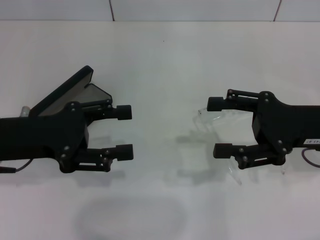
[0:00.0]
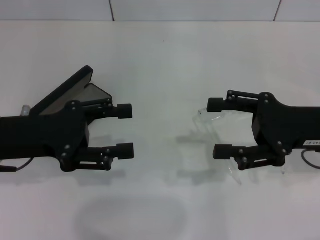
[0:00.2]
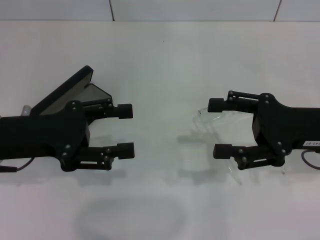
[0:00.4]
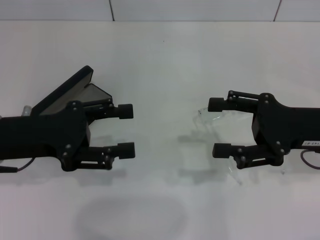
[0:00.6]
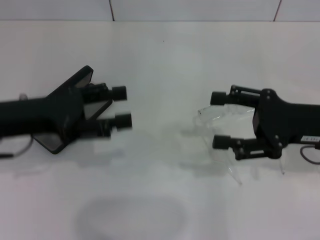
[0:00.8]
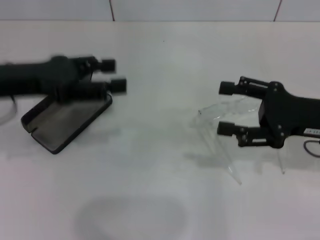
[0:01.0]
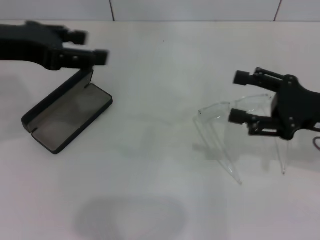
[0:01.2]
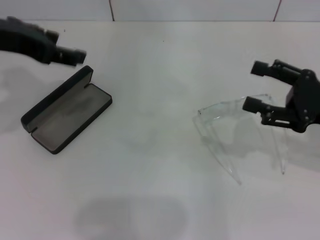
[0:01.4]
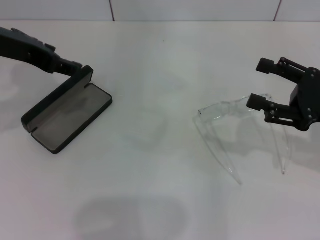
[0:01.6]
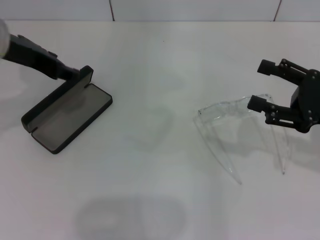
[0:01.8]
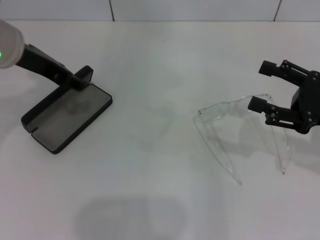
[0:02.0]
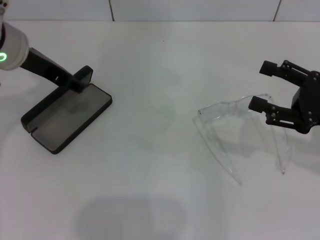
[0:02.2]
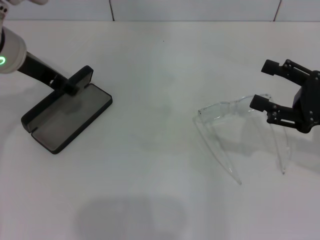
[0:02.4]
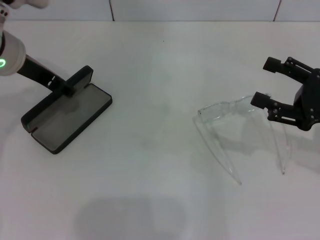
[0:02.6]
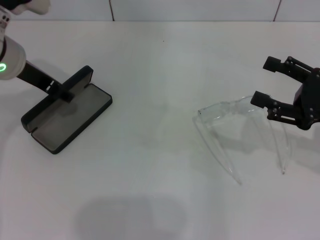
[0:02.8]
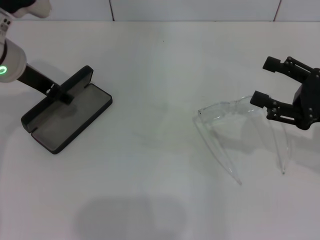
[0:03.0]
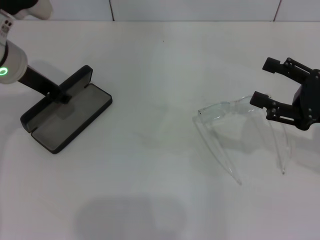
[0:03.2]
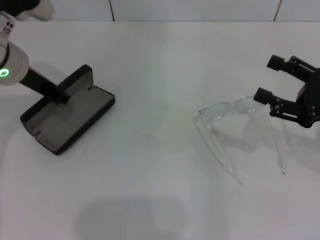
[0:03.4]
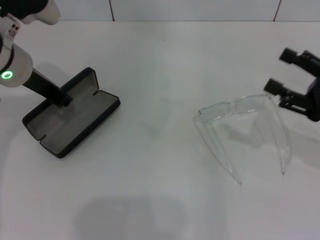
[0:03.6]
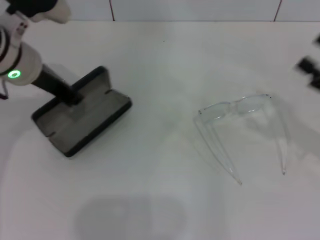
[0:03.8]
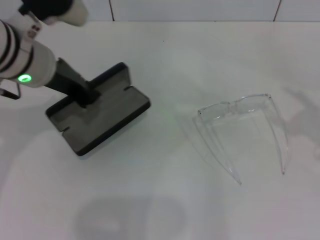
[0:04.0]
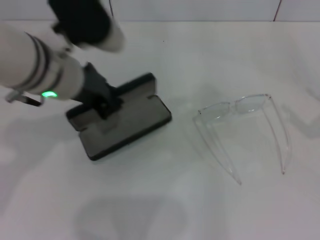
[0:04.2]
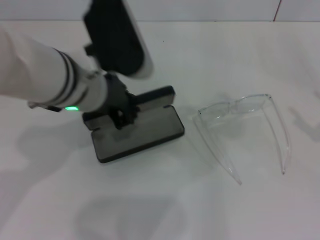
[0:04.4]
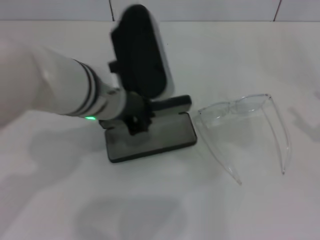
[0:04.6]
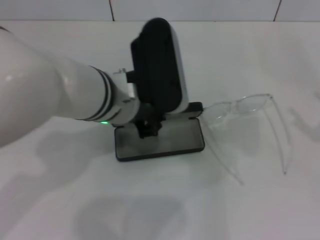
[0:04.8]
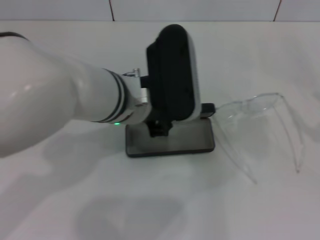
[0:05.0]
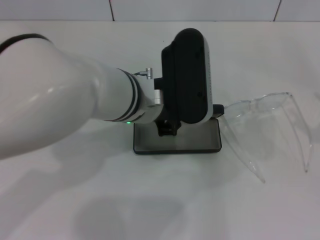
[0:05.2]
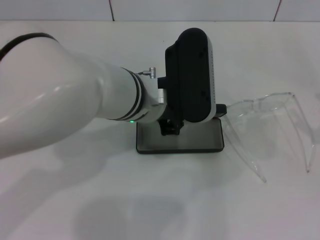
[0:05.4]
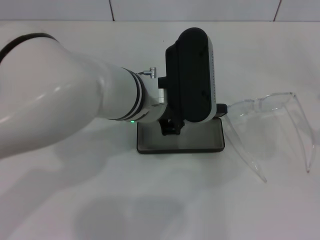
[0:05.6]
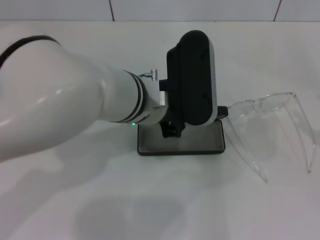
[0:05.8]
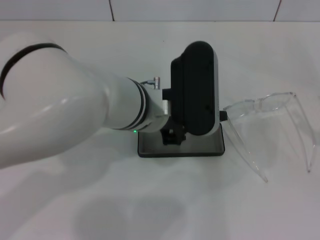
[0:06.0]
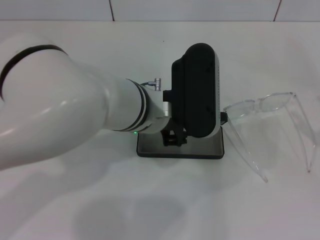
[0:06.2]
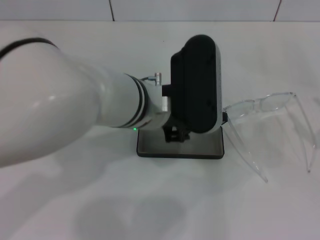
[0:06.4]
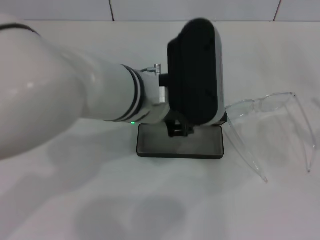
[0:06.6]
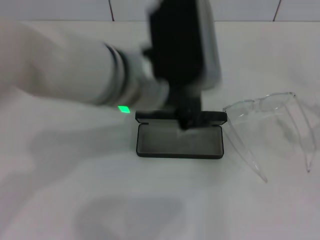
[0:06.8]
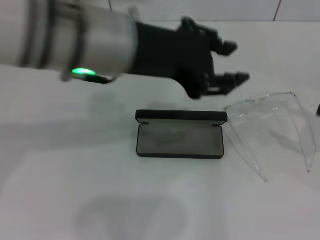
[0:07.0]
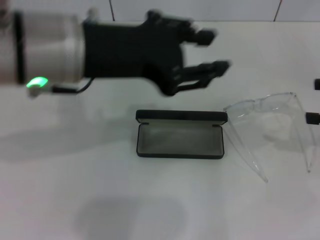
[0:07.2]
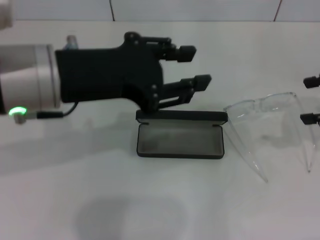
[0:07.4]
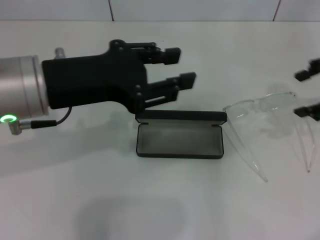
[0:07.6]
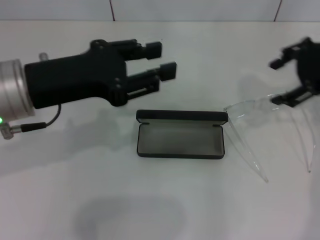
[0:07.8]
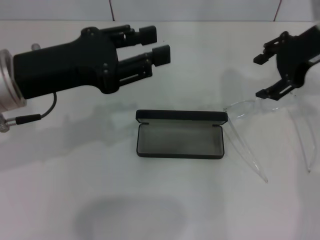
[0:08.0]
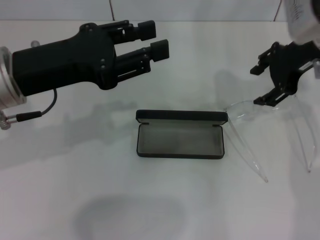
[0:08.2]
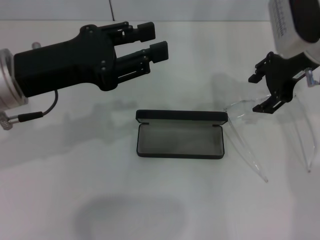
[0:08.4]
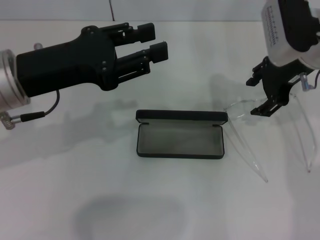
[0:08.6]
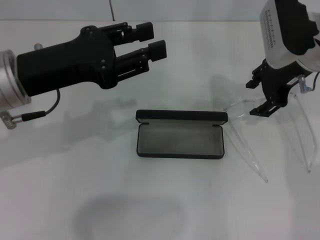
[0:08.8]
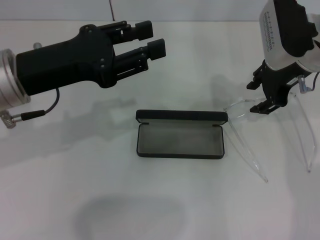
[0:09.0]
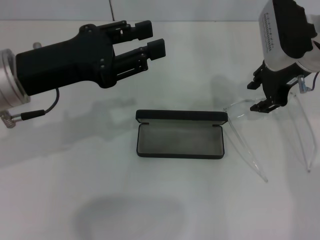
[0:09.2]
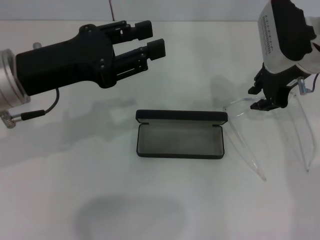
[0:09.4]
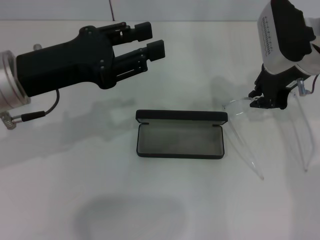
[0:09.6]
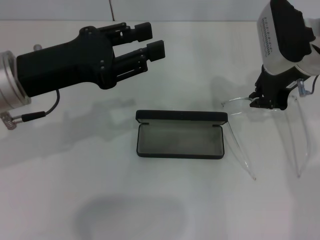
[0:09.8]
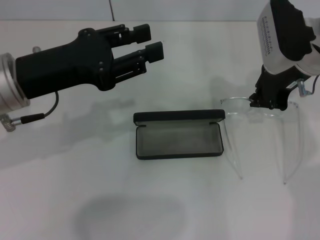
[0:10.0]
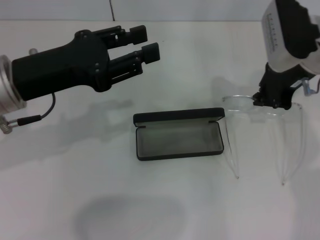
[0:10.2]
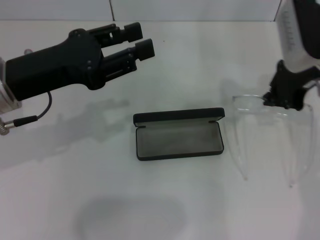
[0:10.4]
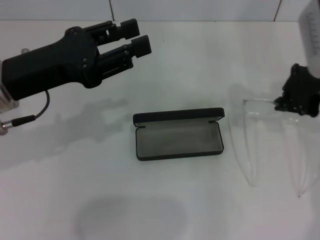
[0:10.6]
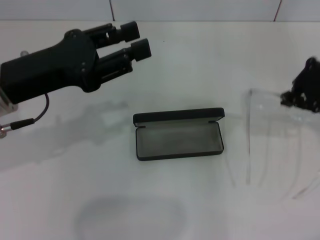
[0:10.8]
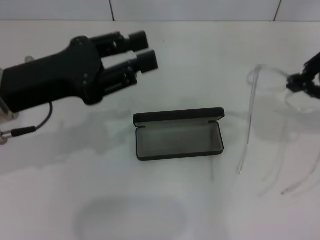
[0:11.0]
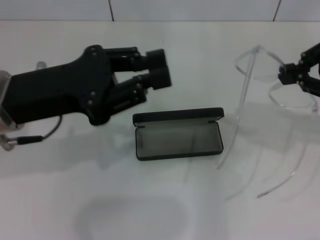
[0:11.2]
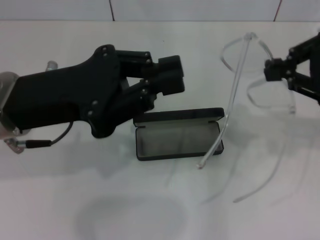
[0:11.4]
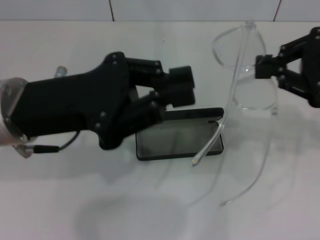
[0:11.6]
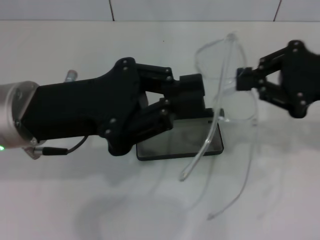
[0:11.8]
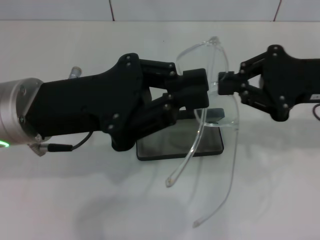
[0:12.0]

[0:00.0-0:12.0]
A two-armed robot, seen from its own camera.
Step, 0:00.0 to 0:03.0: Grab the glasses case with your left hand.
Step, 0:03.2 to 0:06.2: Place the glasses case in the center of the table with your left hand.
Step, 0:06.6 to 0:09.8: Grab the eyeglass frame with your right hand.
0:00.0 to 0:01.6: The left gripper goes approximately 15 cm upward and forward, while the right gripper shifts by approximately 5 cm.
0:01.6 to 0:03.0: The left gripper is displaced downward by approximately 5 cm.
0:03.0 to 0:04.4: Both grippers travel together to the right and backward, approximately 10 cm. The left gripper closes.
0:04.4 to 0:06.0: The left gripper moves to the right, some 5 cm.
0:06.0 to 0:07.6: The right gripper heads forward, upward and to the left, covering about 20 cm. The left gripper travels to the left and upward by some 15 cm.
0:07.6 to 0:09.0: The right gripper is displaced to the left and forward by some 10 cm.
0:09.0 to 0:10.4: The right gripper closes its fingers.
0:10.4 to 0:12.0: The right gripper is displaced backward by roughly 10 cm. Meanwhile the left gripper shifts by some 5 cm, and closes up.

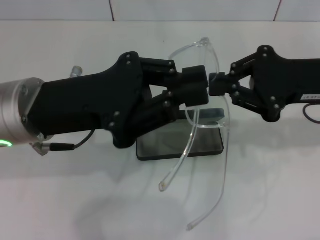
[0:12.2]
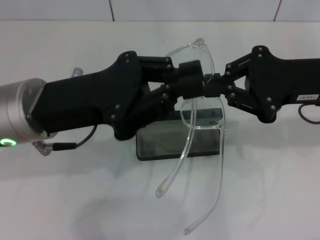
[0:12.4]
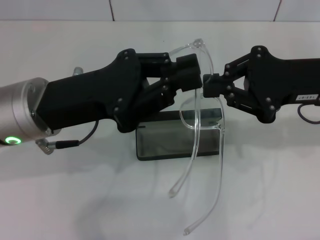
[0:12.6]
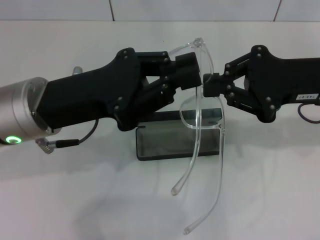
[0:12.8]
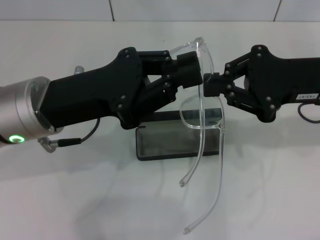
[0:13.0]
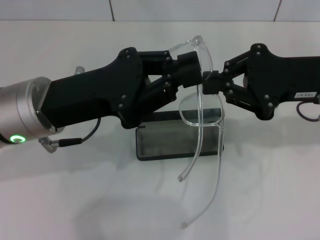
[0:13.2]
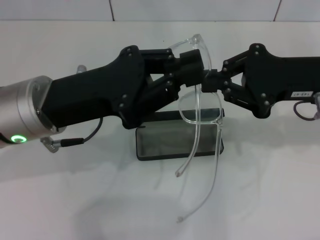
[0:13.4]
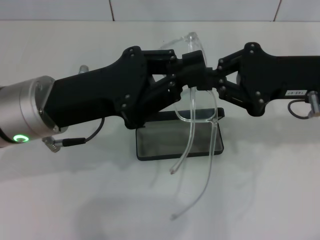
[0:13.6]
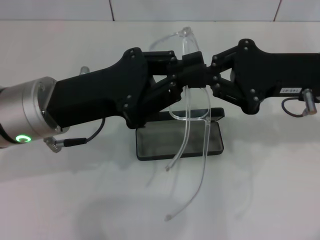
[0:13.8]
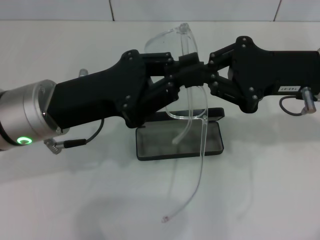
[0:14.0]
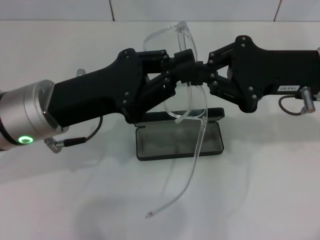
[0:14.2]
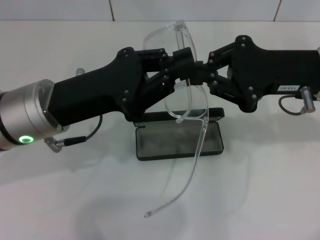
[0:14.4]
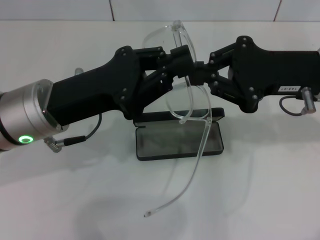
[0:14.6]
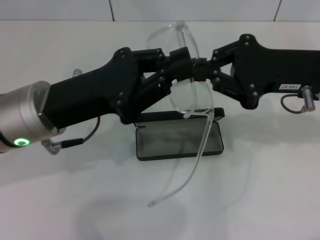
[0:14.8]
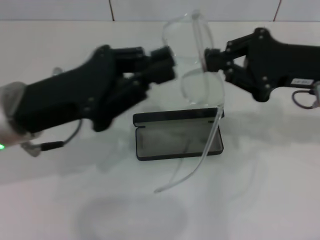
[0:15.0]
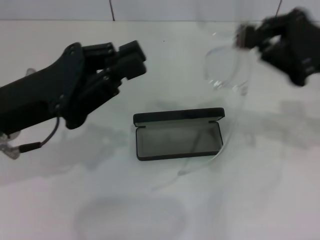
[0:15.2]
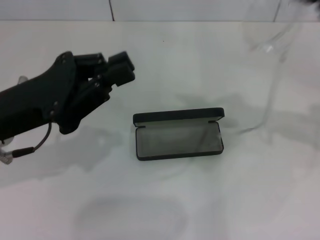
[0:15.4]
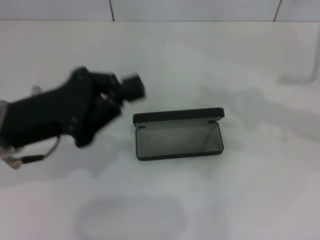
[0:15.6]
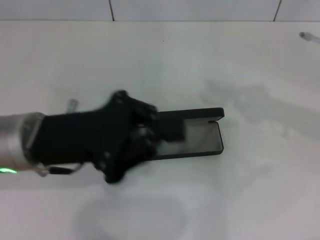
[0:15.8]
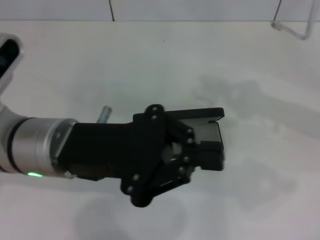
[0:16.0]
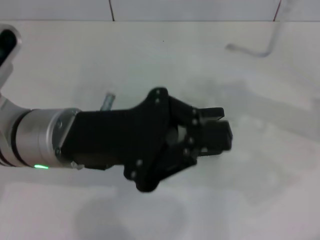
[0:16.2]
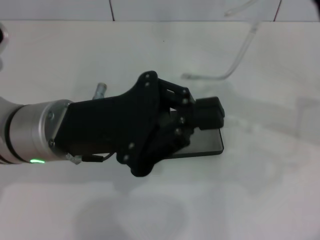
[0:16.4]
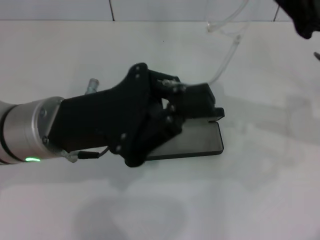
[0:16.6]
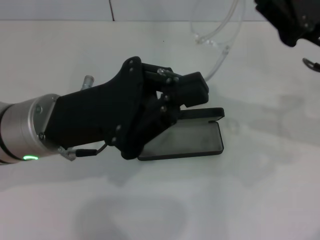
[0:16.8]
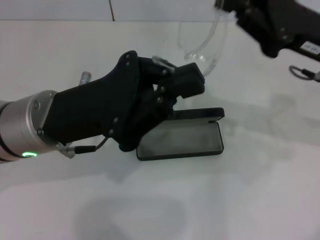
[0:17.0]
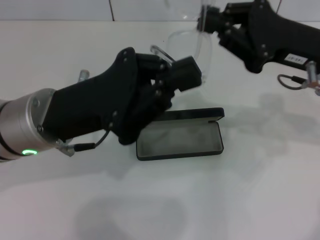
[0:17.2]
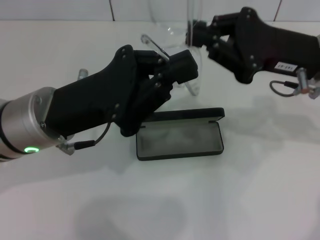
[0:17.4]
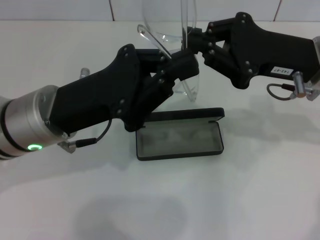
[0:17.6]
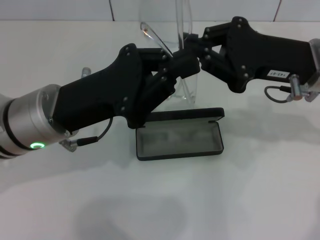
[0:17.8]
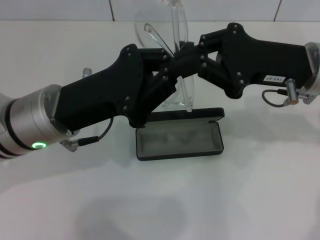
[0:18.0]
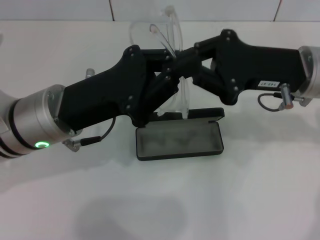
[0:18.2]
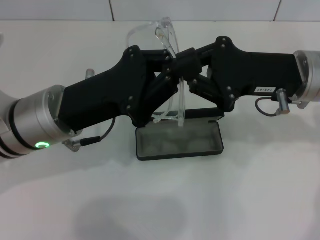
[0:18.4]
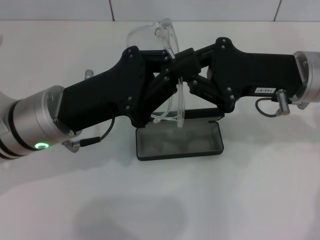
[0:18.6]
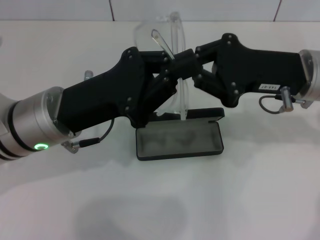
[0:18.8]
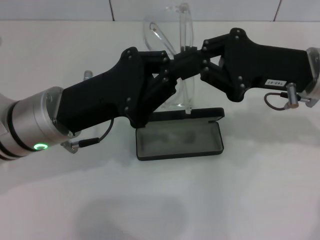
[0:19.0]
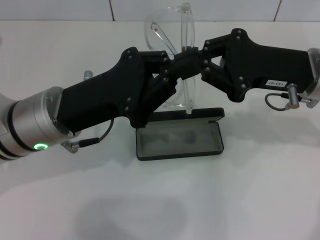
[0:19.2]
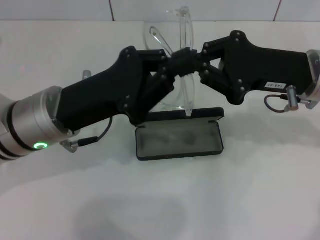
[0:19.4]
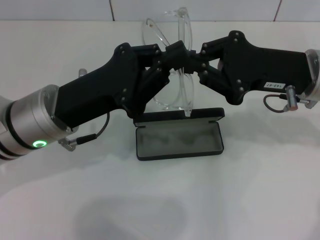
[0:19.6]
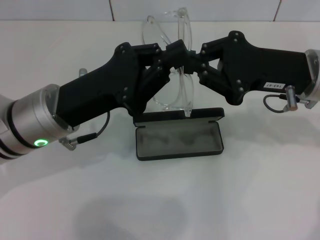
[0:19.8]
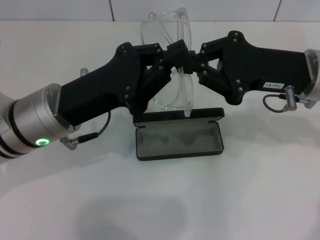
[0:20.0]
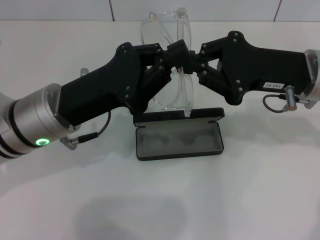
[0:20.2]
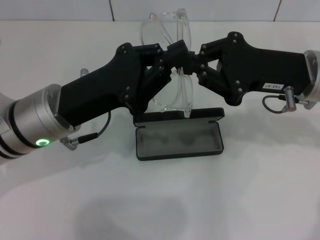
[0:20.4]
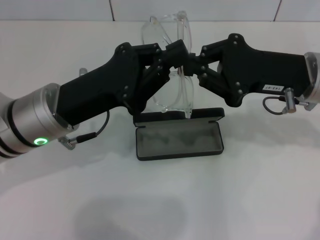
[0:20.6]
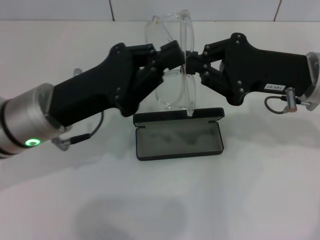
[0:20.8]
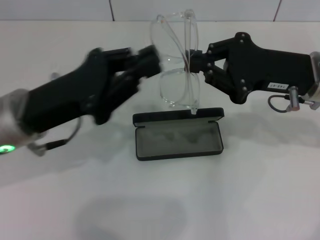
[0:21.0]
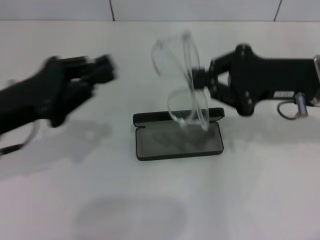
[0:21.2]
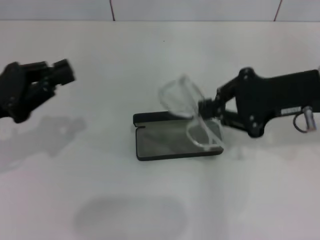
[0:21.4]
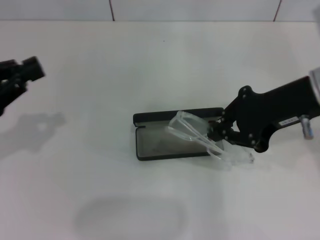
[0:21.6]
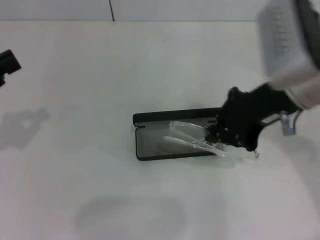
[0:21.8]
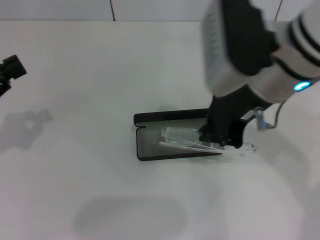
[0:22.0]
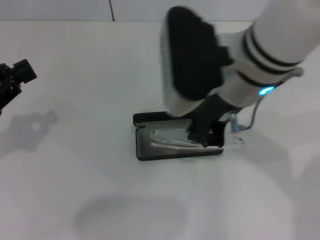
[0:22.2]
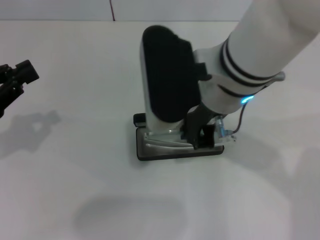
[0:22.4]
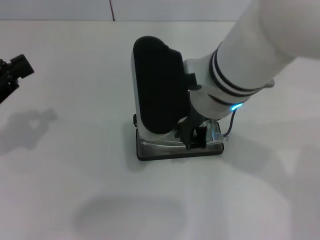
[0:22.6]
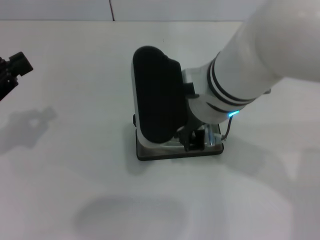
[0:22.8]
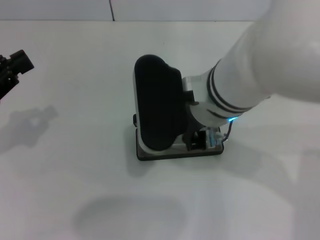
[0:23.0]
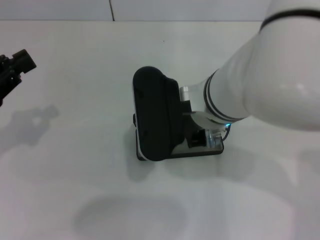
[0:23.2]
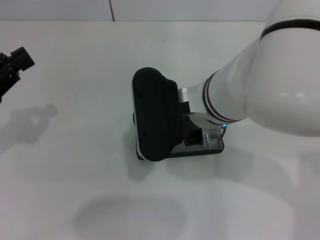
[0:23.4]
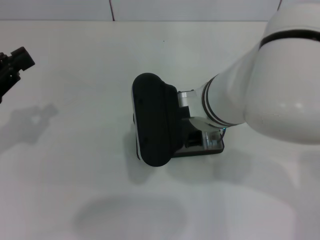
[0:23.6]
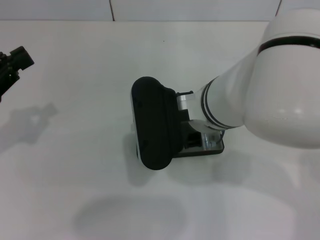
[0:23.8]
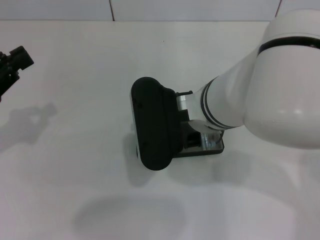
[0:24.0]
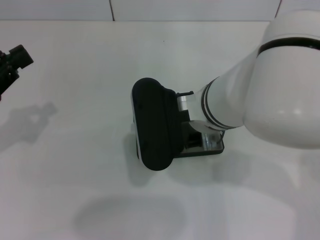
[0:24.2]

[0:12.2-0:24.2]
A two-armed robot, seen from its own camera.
Step, 0:12.2 to 0:20.8: Fold the frame with your left hand.
0:12.2 to 0:13.8: The grippers stay close to where they were, moving slightly.
0:15.2 to 0:16.6: The left gripper moves to the right, some 5 cm.
0:16.6 to 0:18.2: The right gripper moves to the left, roughly 5 cm.
0:18.2 to 0:19.8: The grippers make only small movements.
0:19.8 to 0:21.2: The left gripper is displaced to the left by roughly 10 cm.
0:21.2 to 0:22.6: The left gripper goes some 10 cm to the left; the right gripper travels to the left by roughly 20 cm.
